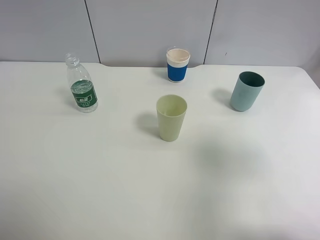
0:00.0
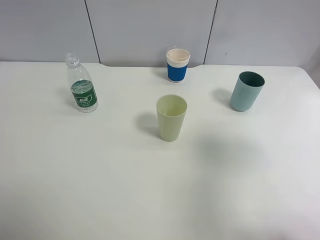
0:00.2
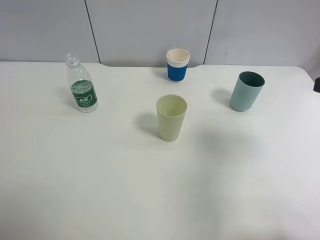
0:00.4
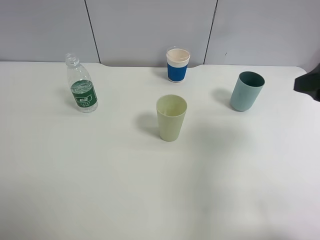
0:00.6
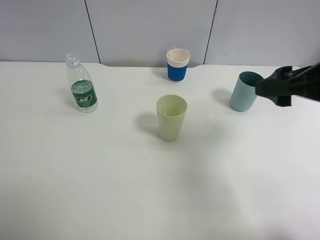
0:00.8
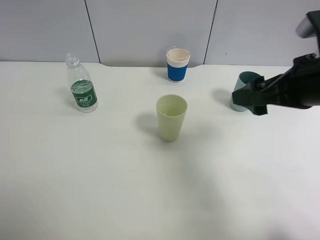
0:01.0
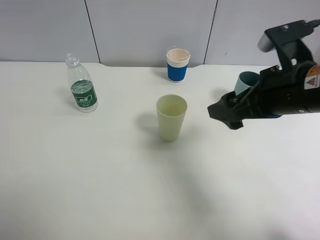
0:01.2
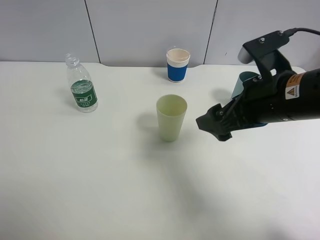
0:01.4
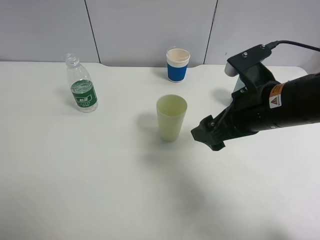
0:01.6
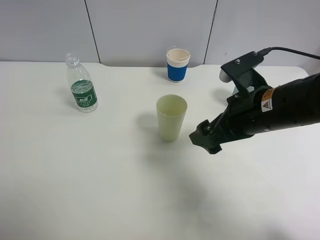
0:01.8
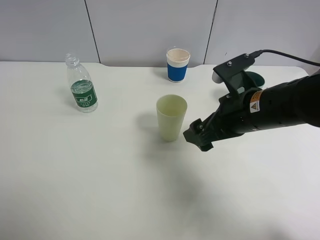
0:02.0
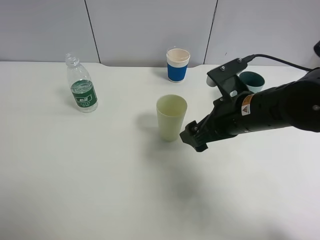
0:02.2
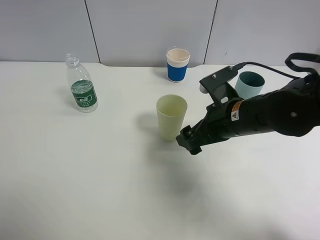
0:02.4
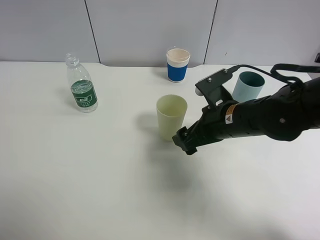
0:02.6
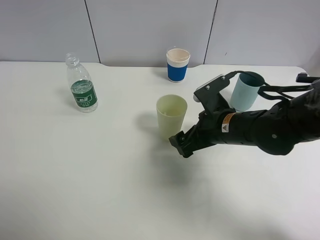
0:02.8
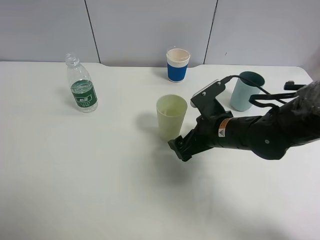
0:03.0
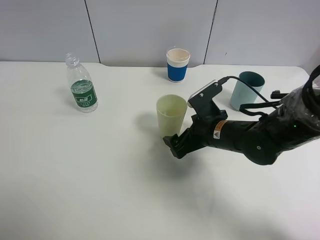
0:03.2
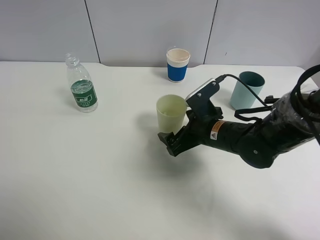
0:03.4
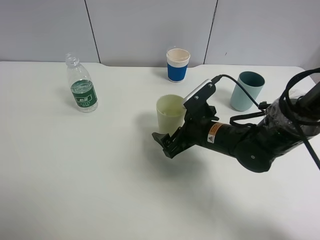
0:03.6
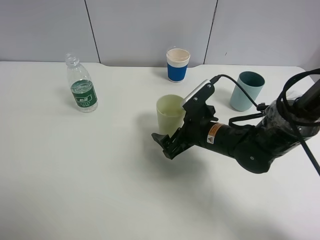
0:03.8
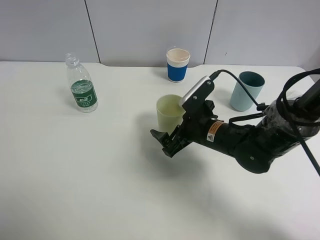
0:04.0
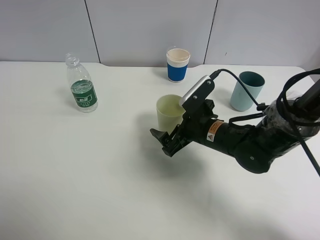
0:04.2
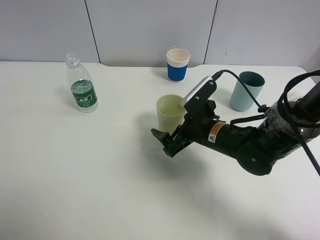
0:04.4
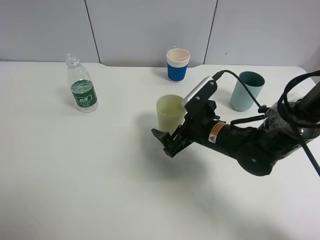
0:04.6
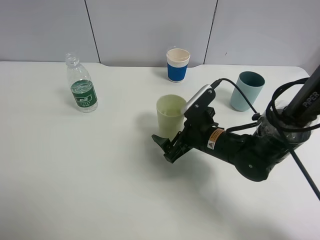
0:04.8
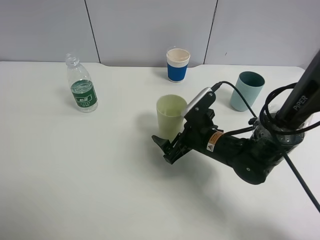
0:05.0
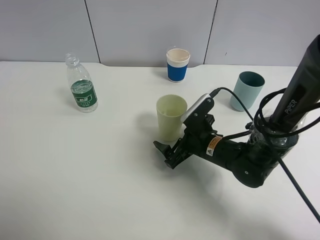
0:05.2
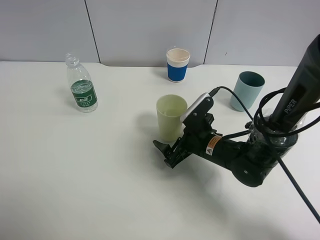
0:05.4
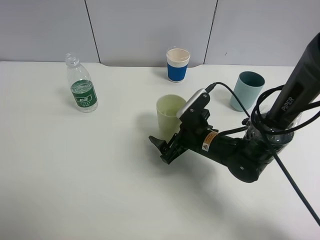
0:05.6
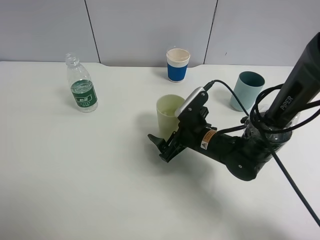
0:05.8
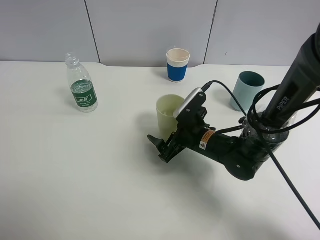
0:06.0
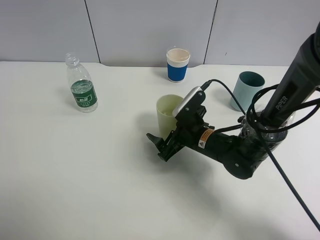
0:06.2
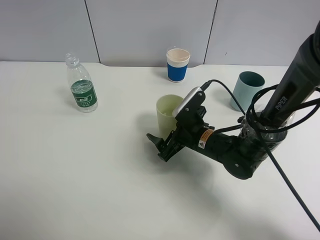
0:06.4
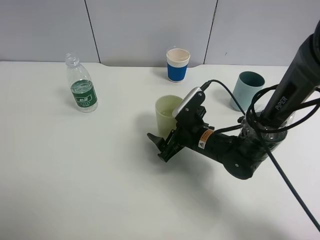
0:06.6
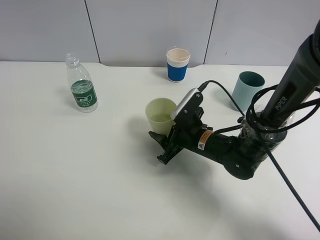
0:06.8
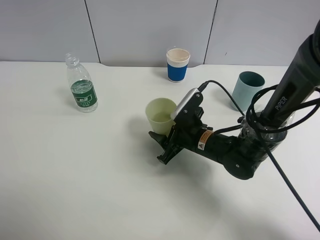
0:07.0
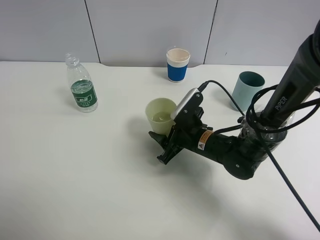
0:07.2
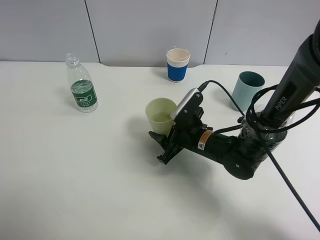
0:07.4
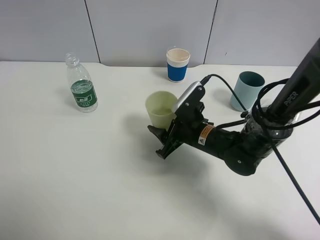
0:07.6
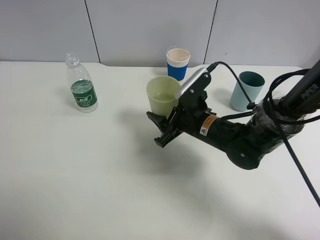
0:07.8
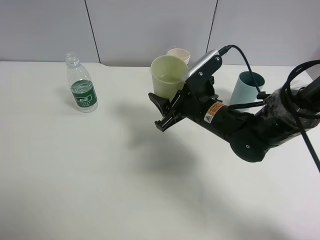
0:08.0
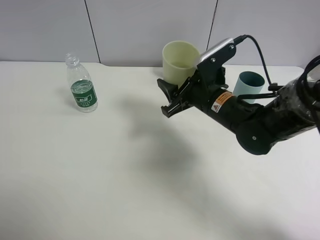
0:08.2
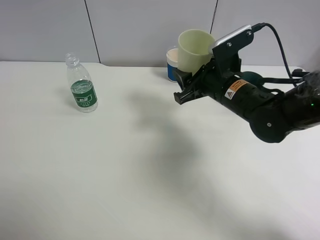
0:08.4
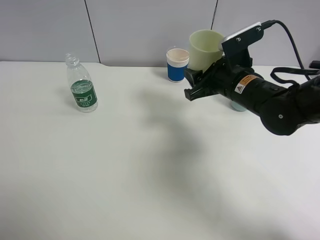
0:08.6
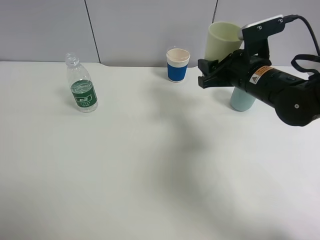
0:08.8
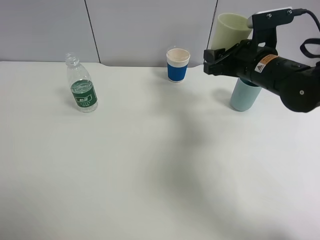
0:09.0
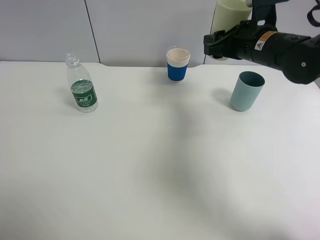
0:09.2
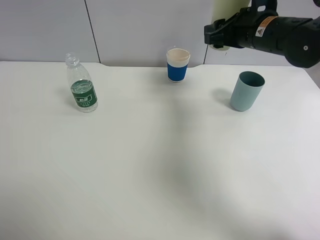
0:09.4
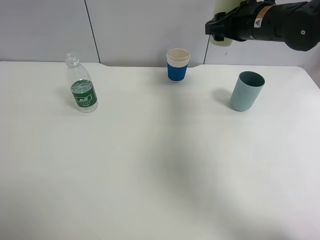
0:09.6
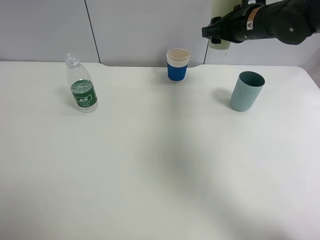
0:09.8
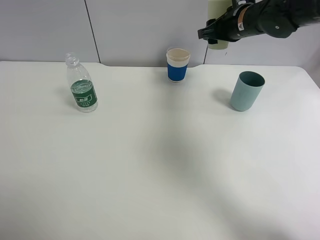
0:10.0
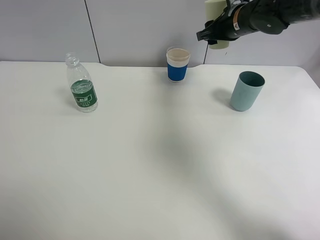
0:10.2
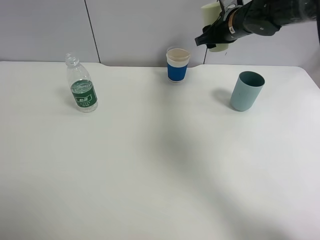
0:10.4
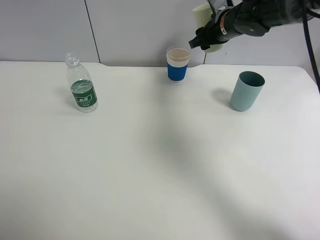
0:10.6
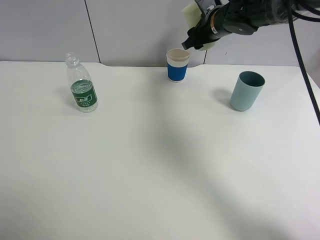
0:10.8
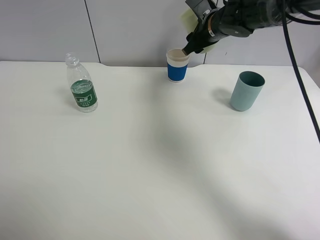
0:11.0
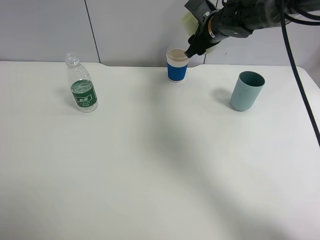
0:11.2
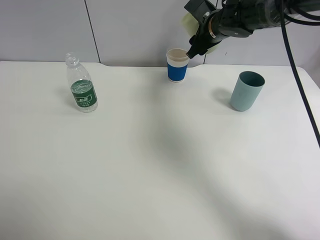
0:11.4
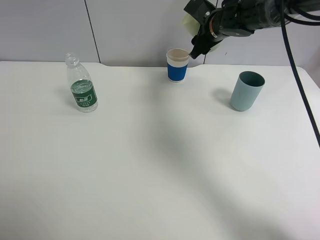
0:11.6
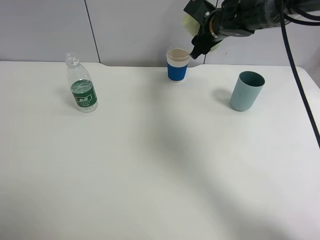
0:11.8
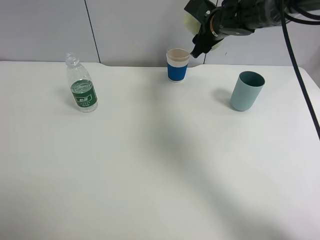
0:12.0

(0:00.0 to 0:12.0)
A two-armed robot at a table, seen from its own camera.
Task of the whole recording: use a clamp to hold the bottle of the drink, pour the beverage into a random cup, then clamp the cup containing the drink and pour the drink into another random cup.
Step, 0:00.0 - 0:09.2: Pick up the green plastic cup bottle with right gripper.
0:00.0 - 0:01.6: The right gripper goes about 20 cm to the left, downward and forward.
0:01.6 - 0:03.0: The right gripper heads downward, covering roughly 10 cm.
0:04.4 - 0:06.0: The grippers move only a little.
0:06.0 - 0:07.6: The right gripper closes up.
0:07.6 - 0:09.0: The right gripper heads upward, to the right and forward, covering about 15 cm.
0:09.0 - 0:10.4: The right gripper goes approximately 15 cm forward.

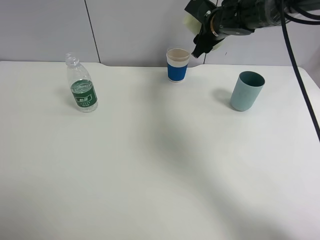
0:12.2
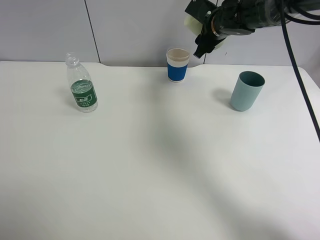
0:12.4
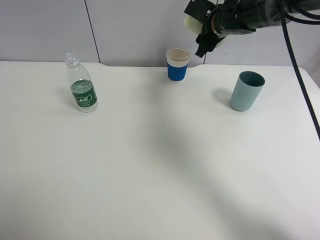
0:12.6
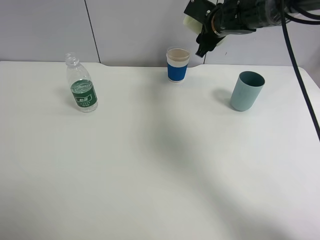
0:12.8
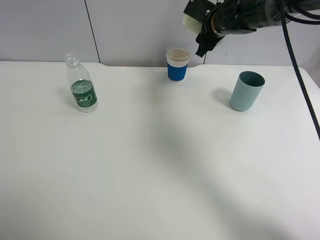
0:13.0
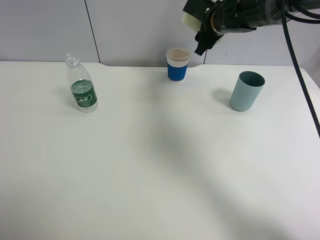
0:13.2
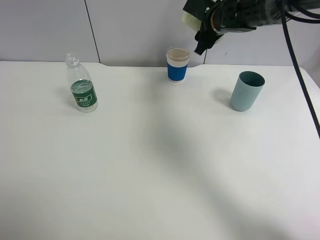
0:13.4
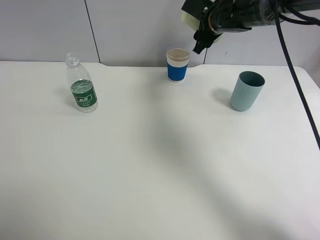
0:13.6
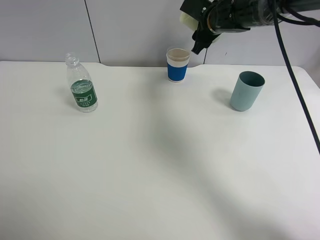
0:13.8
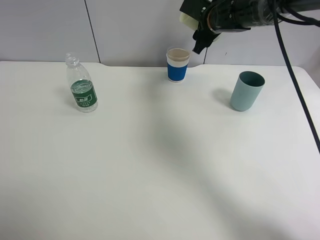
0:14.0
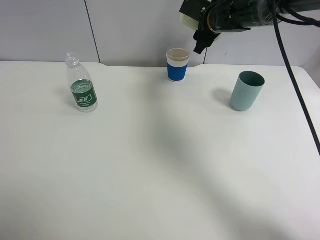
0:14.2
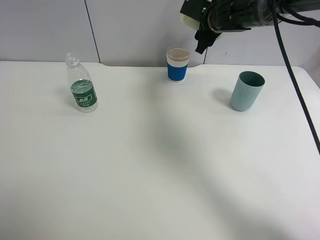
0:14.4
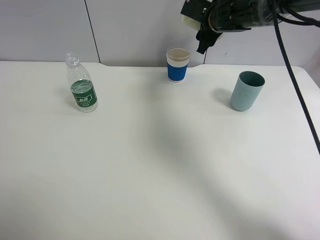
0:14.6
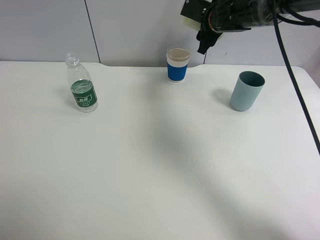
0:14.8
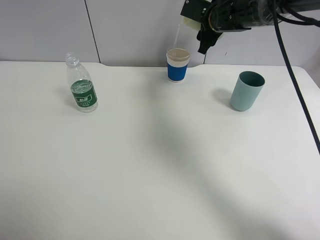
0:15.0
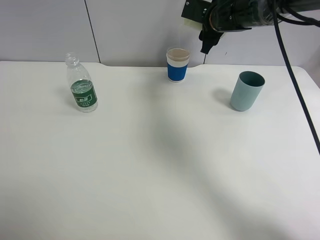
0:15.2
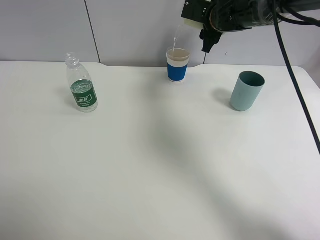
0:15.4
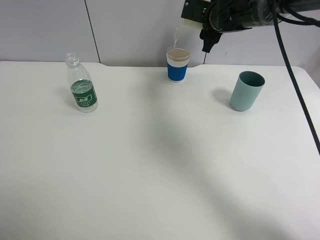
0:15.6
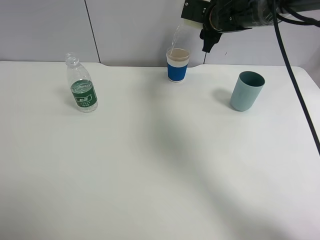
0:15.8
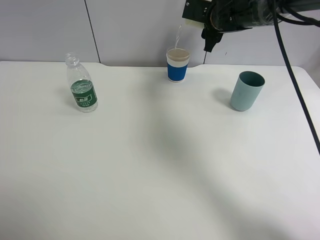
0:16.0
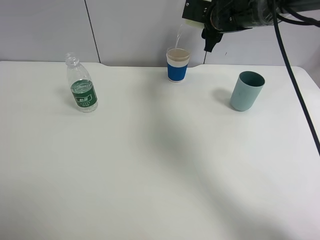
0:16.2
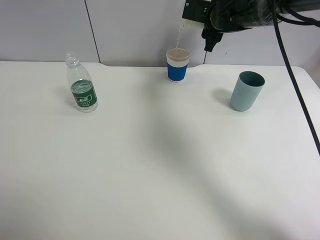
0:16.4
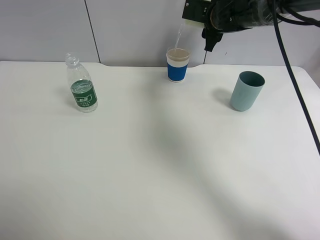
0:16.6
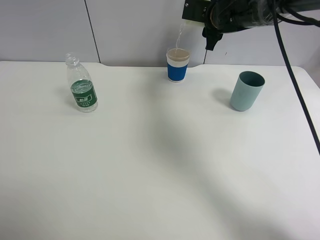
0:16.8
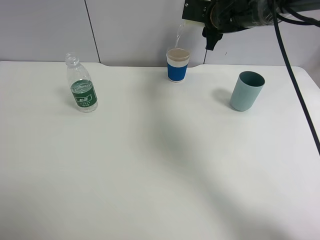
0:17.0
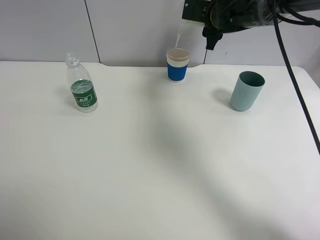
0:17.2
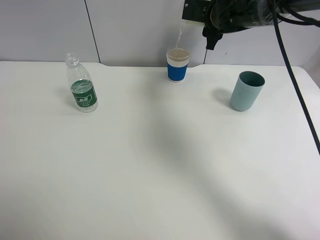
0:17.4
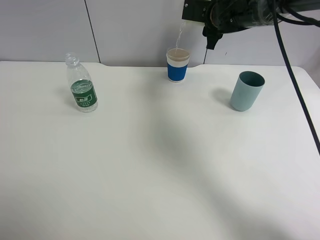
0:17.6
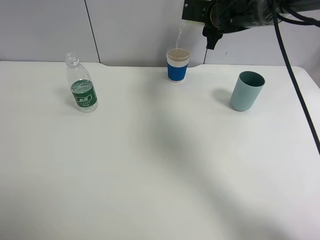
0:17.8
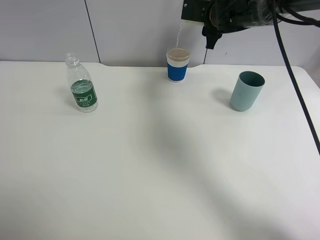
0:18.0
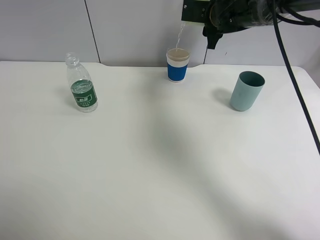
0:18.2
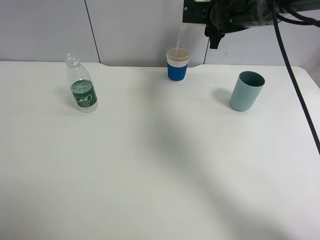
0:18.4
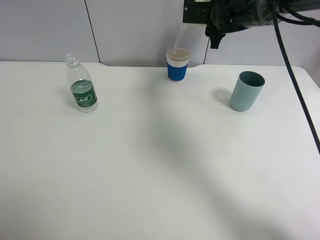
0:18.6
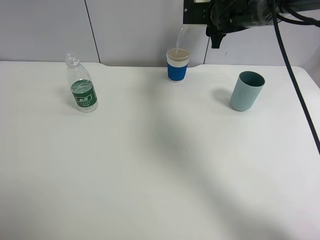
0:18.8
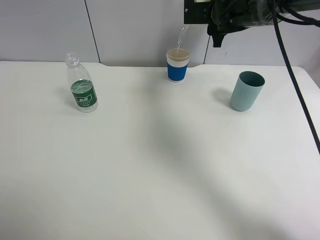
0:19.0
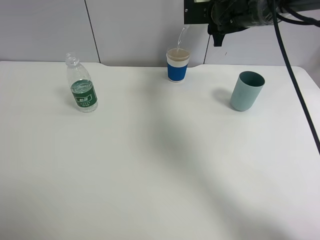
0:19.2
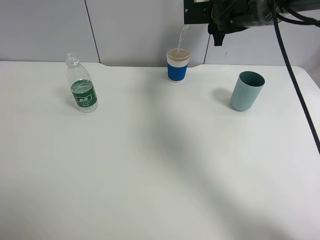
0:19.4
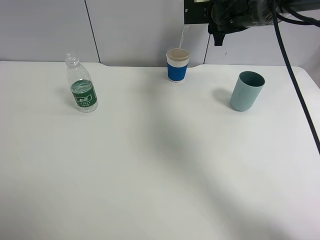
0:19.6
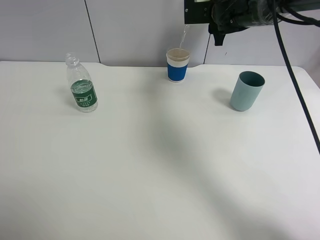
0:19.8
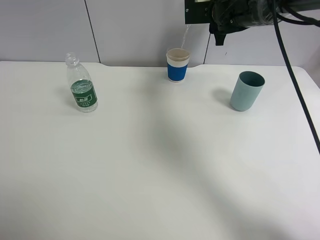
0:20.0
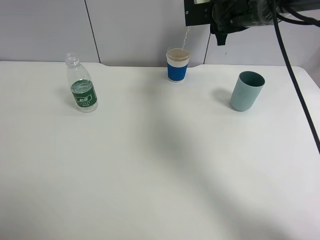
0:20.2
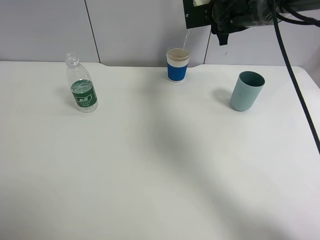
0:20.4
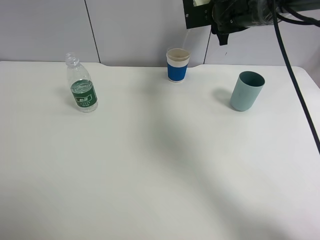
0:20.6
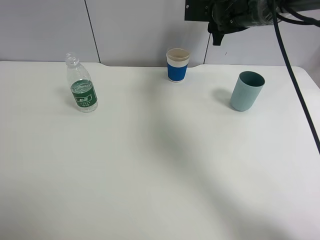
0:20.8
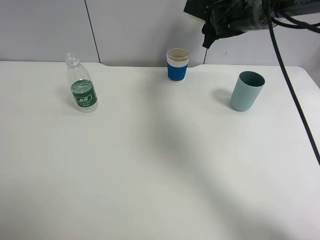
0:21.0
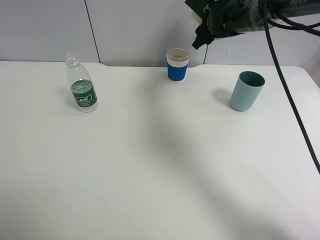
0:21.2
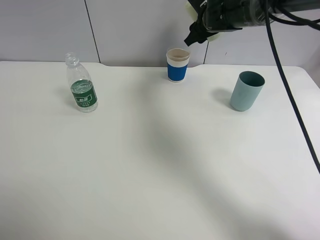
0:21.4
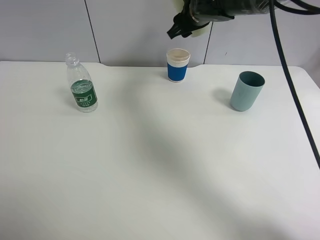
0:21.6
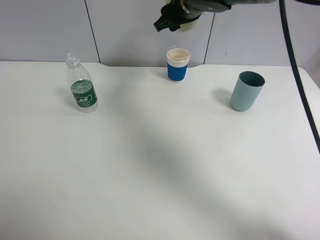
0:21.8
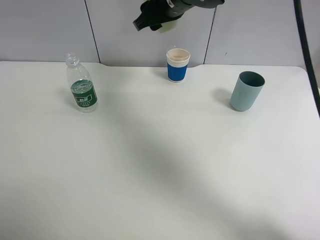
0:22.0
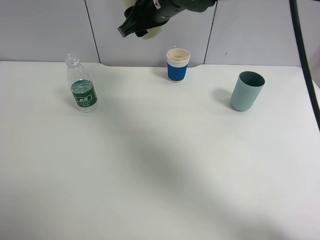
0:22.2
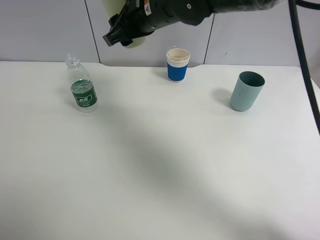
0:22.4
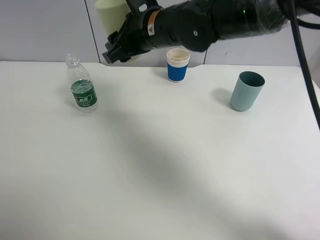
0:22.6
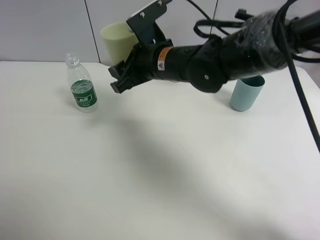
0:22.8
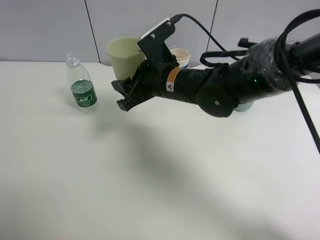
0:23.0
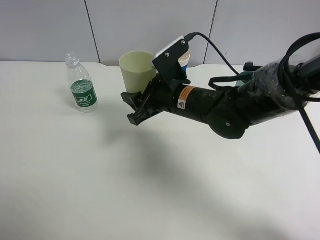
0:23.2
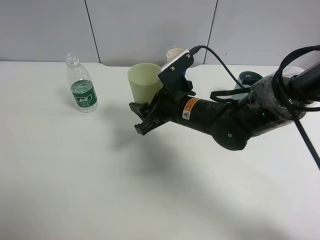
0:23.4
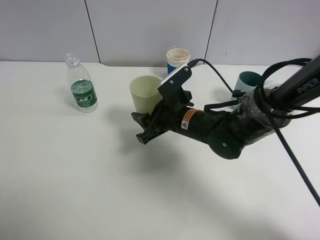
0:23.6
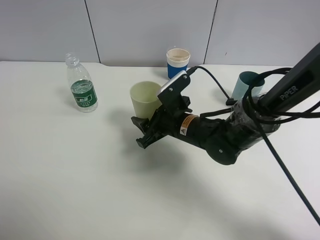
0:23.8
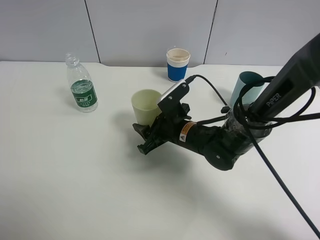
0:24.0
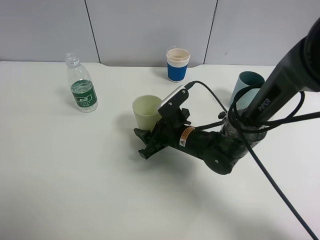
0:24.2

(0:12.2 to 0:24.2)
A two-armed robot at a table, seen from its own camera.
Task of the whole recording: use a clamp to hold the bottle of the drink, pour the beverage into a random cup, then clamp the cup containing the drink and pour the drink into another random cup.
Step, 0:12.2 - 0:21.2: Pour the drink into the paper cup with right gripper.
0:12.2 - 0:13.8: There are only small adjustments of the grippers.
0:18.2 - 0:19.8: The grippers move only a little.
0:21.2 - 0:22.6: The right gripper moves backward and to the left, approximately 20 cm.
0:22.6 - 0:24.2: The right gripper goes roughly 20 cm downward.
